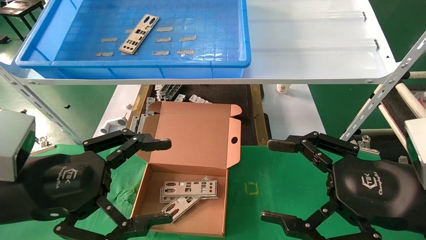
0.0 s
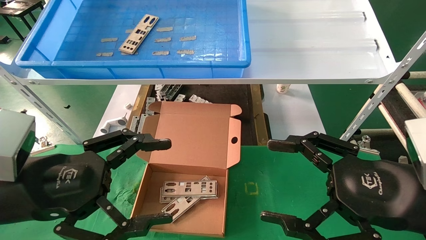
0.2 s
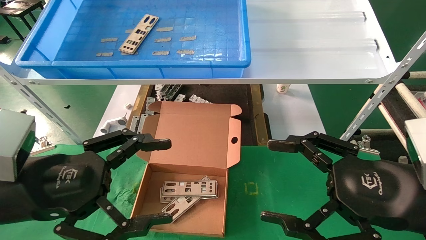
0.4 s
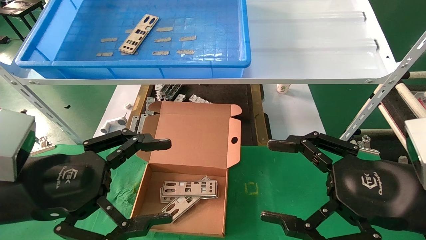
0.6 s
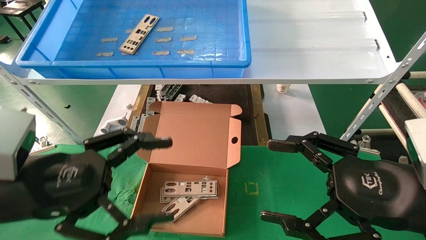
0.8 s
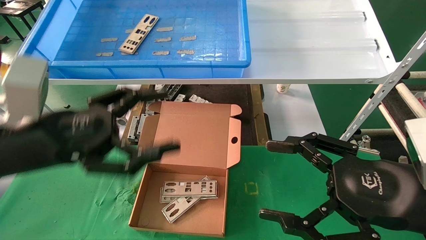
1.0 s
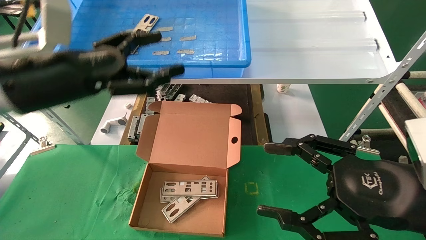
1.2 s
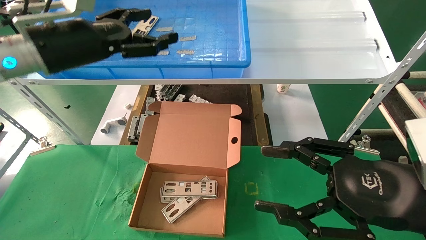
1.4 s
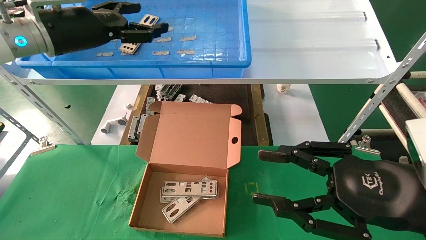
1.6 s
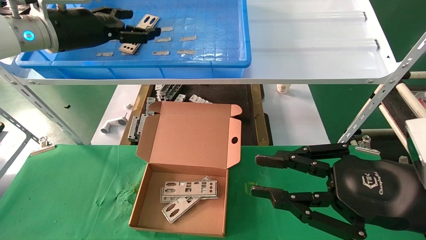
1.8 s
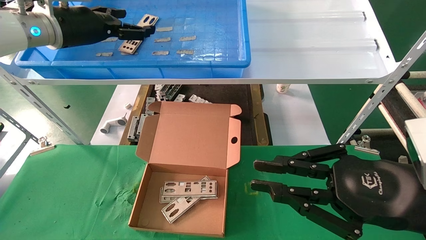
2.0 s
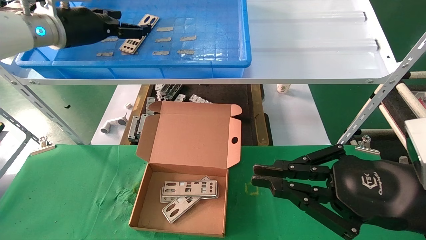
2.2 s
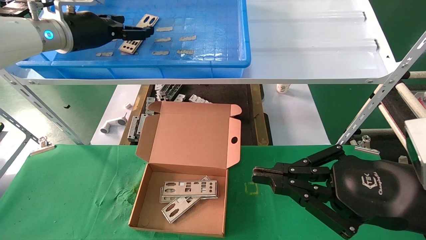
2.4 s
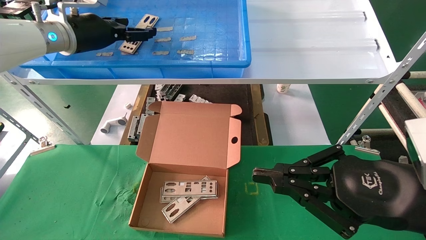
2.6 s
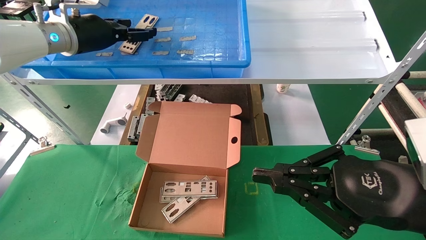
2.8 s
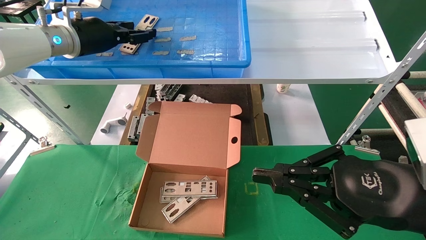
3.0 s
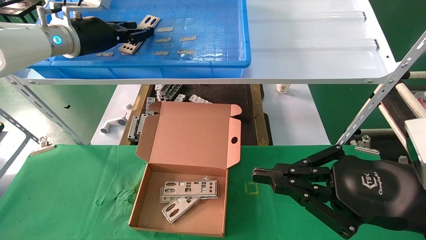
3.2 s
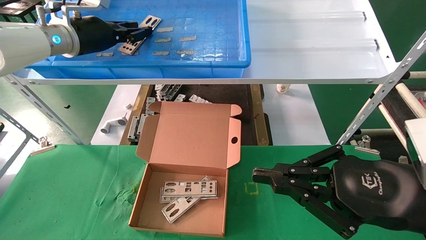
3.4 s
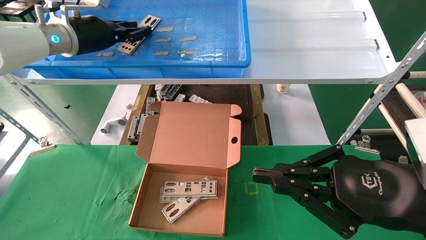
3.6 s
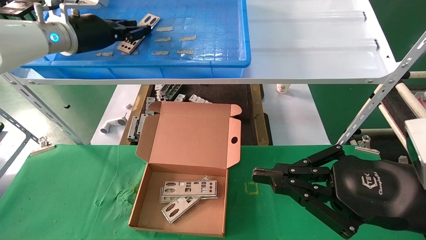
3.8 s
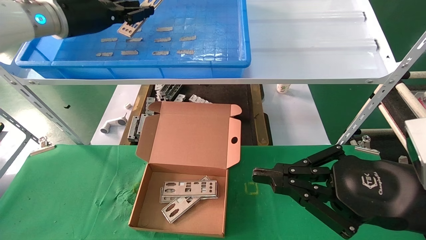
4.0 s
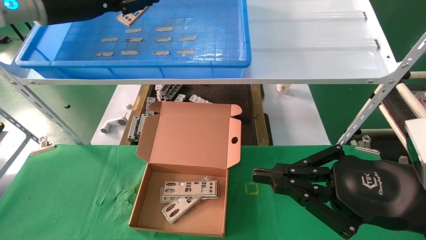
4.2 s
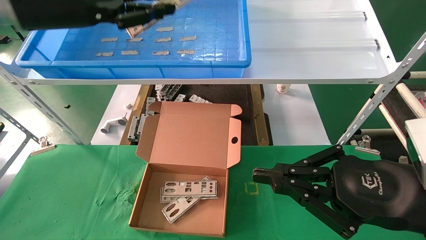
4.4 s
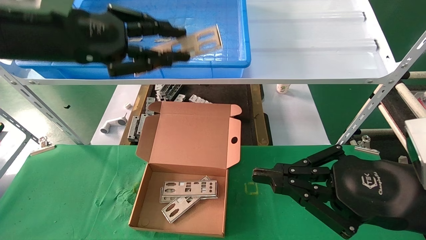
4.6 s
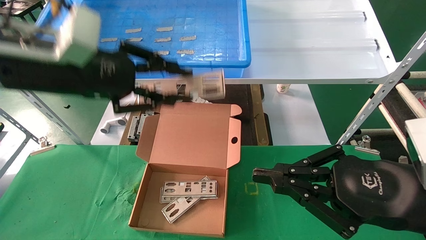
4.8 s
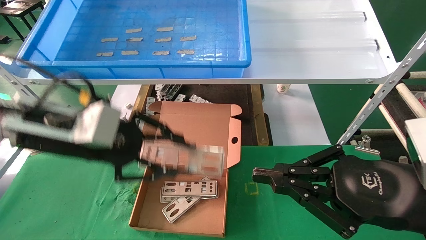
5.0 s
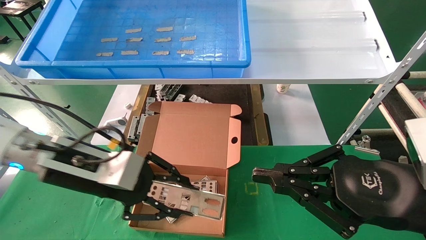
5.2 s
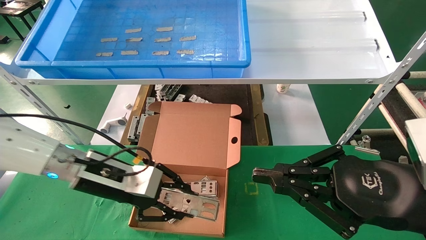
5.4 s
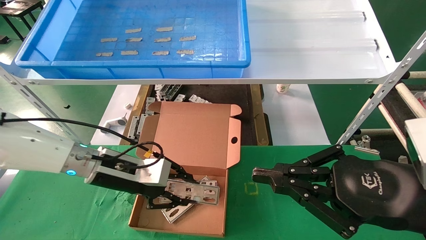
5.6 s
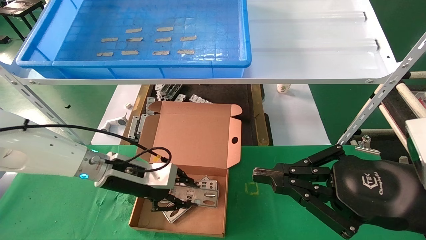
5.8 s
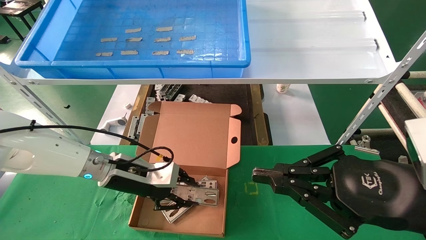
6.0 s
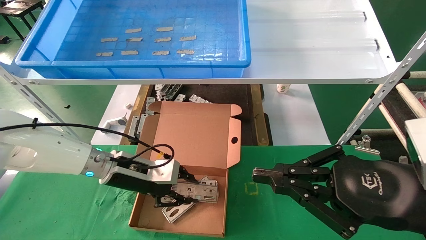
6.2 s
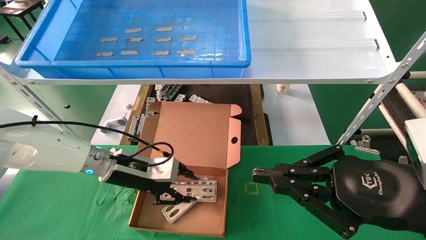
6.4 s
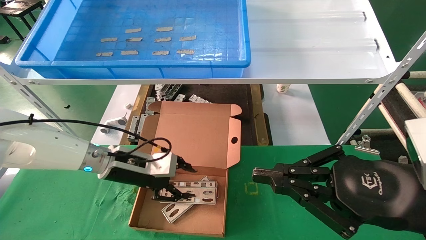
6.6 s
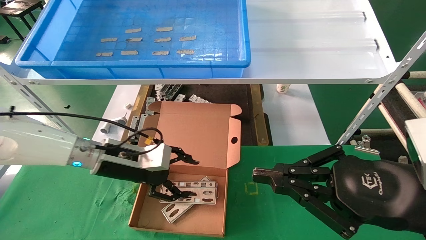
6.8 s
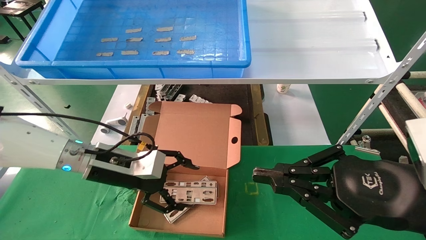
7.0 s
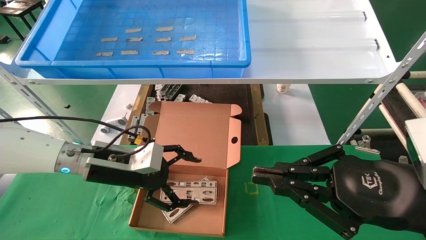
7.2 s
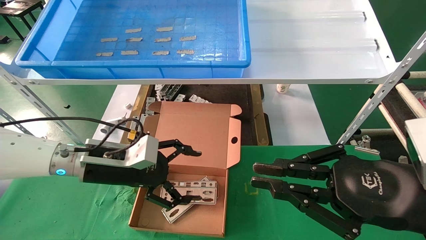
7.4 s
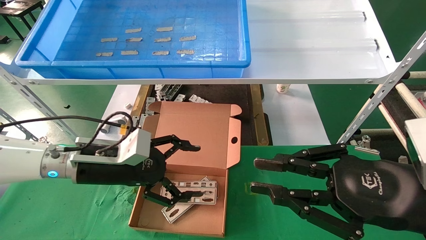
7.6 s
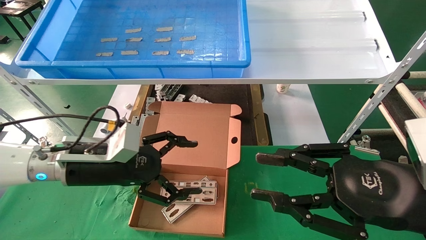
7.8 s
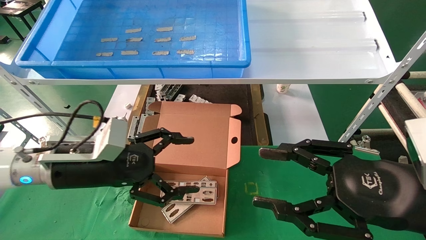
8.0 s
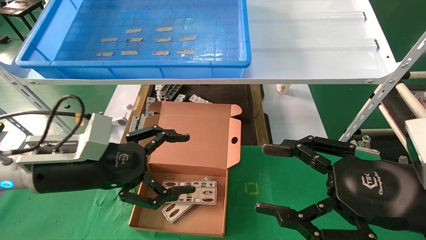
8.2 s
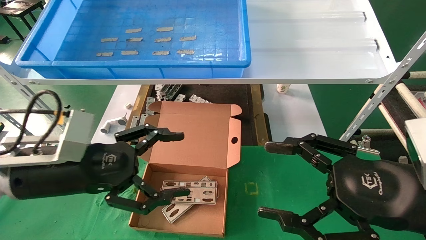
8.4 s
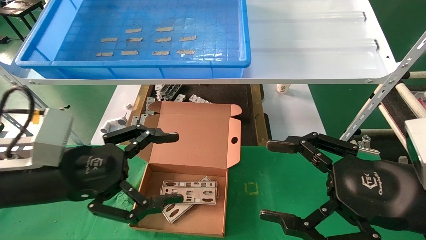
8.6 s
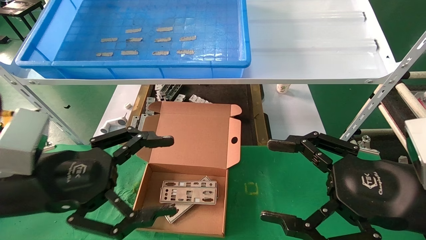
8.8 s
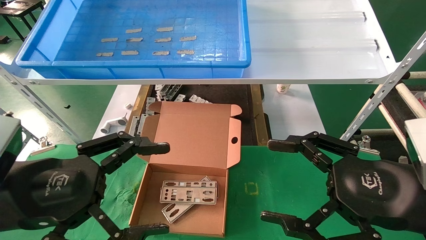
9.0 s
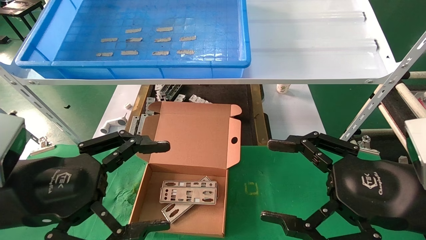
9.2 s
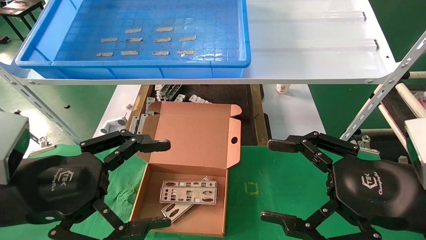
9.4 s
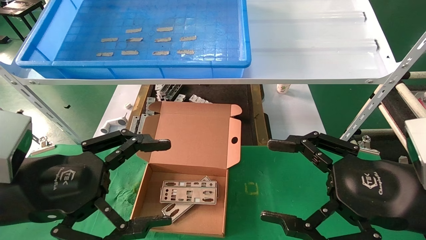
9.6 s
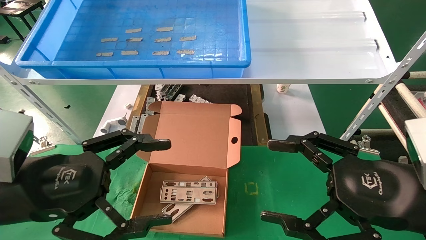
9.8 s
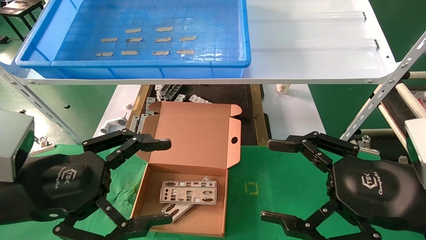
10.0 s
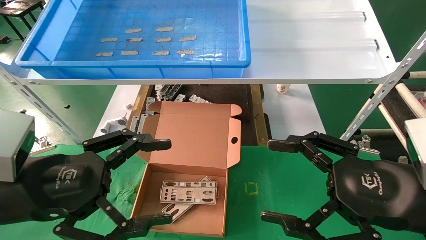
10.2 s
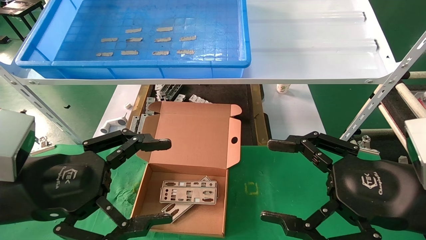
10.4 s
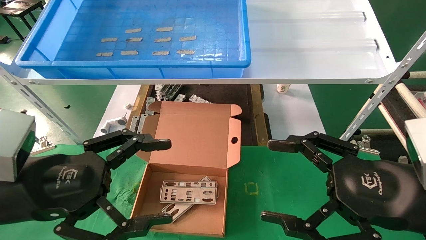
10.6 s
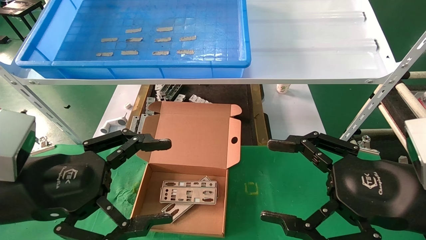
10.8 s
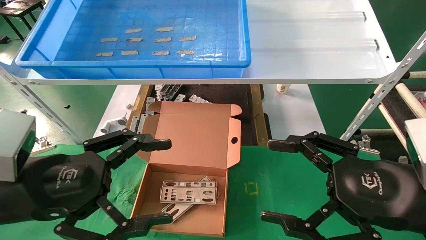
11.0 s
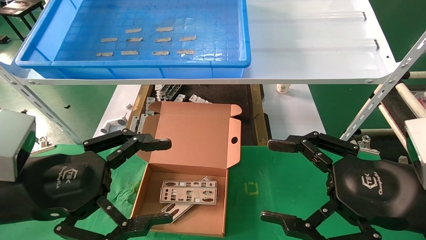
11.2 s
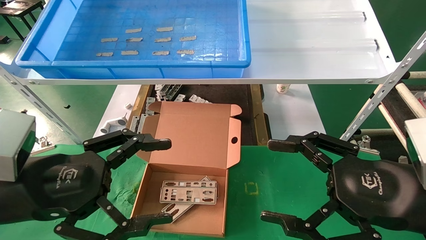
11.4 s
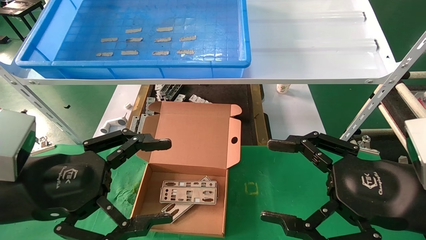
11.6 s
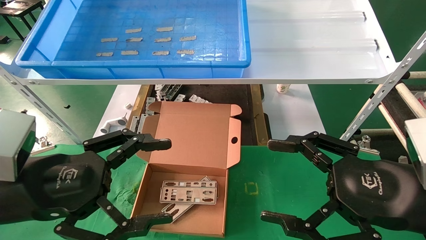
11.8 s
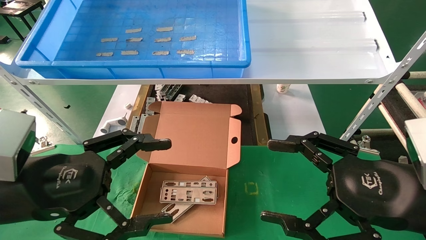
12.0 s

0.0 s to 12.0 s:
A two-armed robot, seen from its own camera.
Task of the whole recording: pick up the parts on the tray and put them in the cardboard box.
Step, 1.2 to 4.0 s: Pick up the IO bracket from the container box.
Step, 4.2 to 6.6 s: Place the IO bracket into the ingredient slot.
0.0 to 1.6 s: The left gripper moves forward and upward, about 25 cm, while the right gripper closes.
1.6 to 3.0 s: The left gripper heads forward, covering approximately 5 cm, and closes up, while the right gripper closes.
3.0 to 4.4 s: The left gripper heads backward, covering roughly 10 cm, and closes up.
4.4 to 6.0 s: The left gripper is displaced downward by roughly 30 cm.
6.0 to 7.6 s: The left gripper moves about 5 cm, and opens up.
7.6 to 9.0 s: The right gripper opens up; the left gripper is displaced backward by about 15 cm.
9.0 to 12.0 s: The two grippers keep their place.

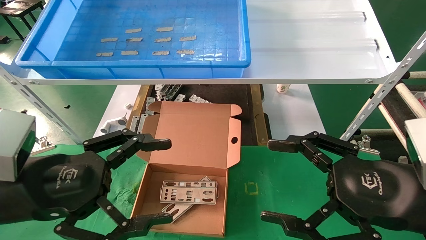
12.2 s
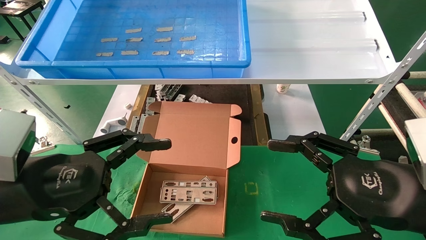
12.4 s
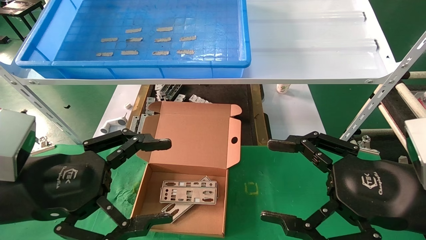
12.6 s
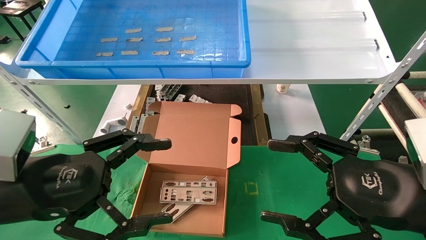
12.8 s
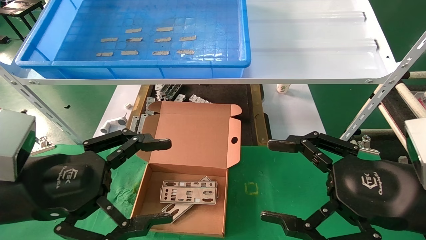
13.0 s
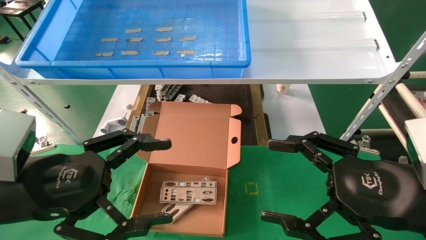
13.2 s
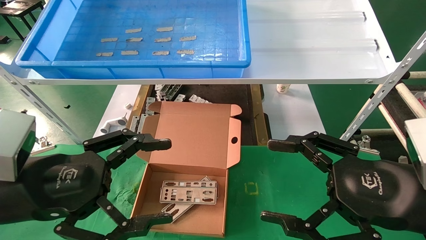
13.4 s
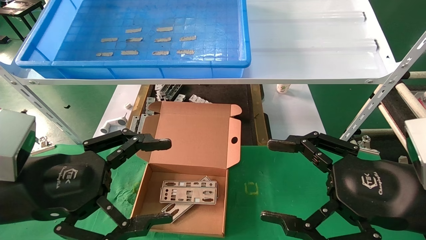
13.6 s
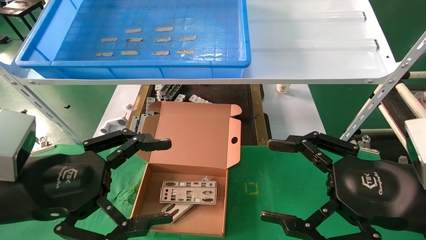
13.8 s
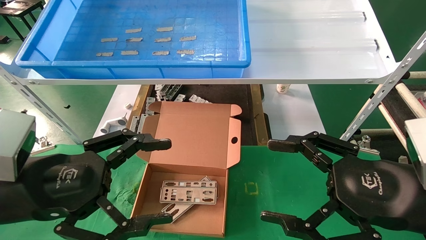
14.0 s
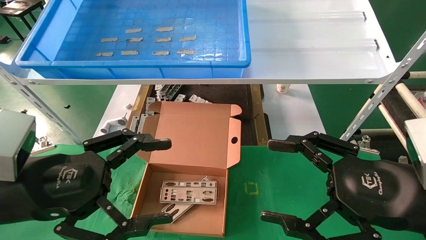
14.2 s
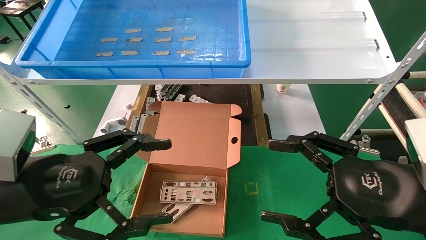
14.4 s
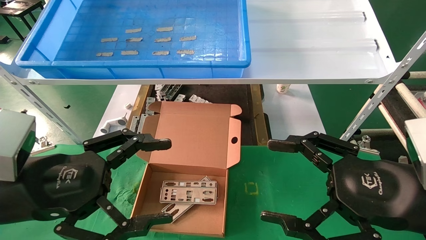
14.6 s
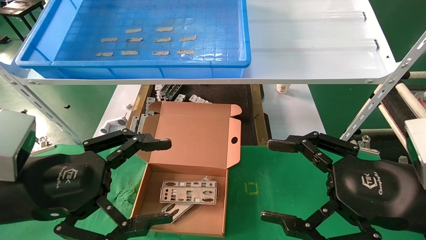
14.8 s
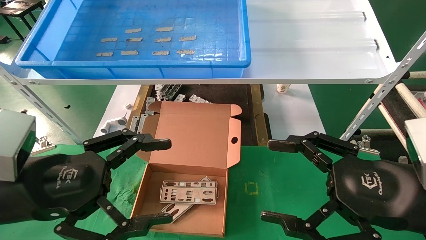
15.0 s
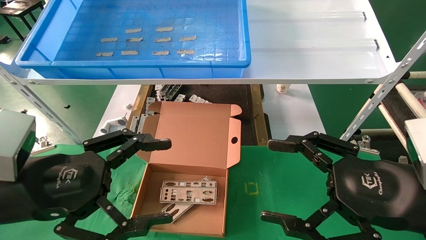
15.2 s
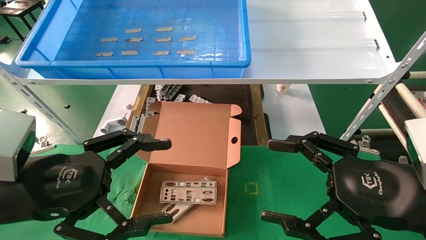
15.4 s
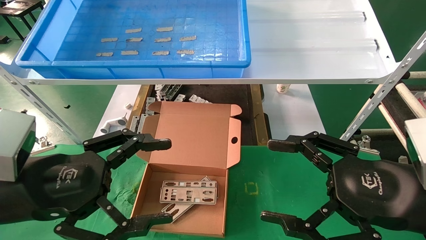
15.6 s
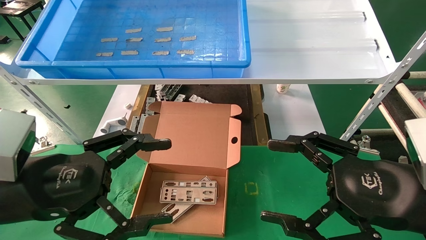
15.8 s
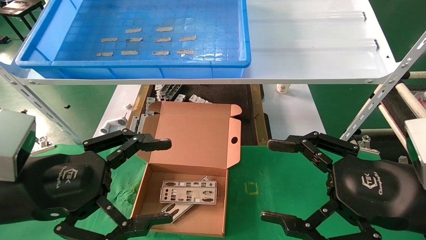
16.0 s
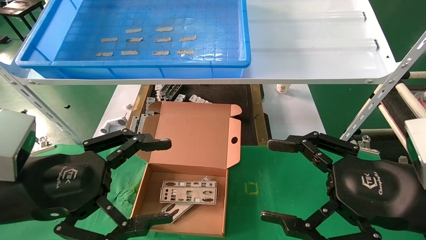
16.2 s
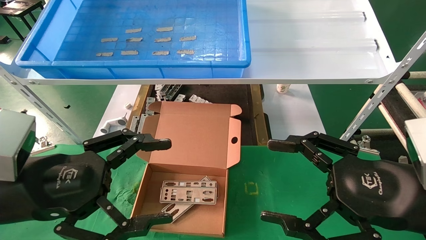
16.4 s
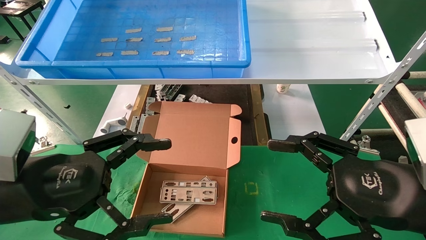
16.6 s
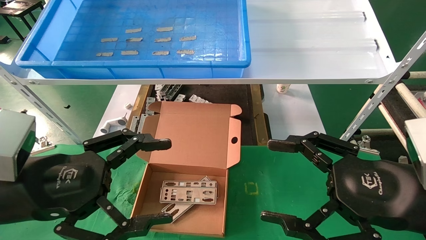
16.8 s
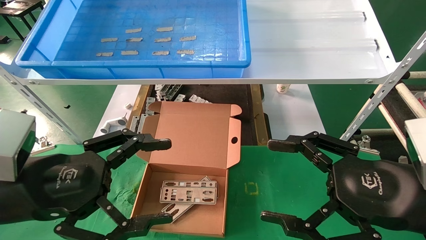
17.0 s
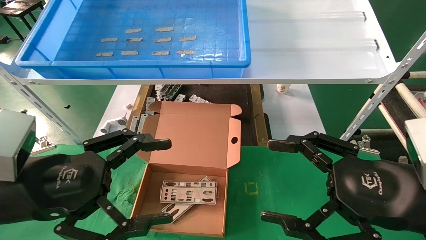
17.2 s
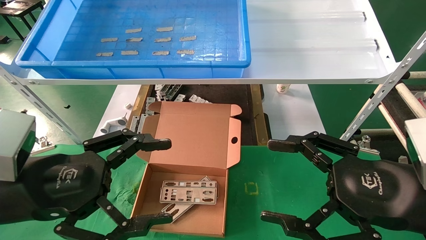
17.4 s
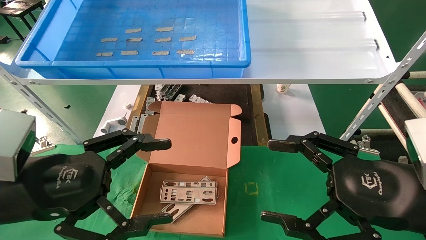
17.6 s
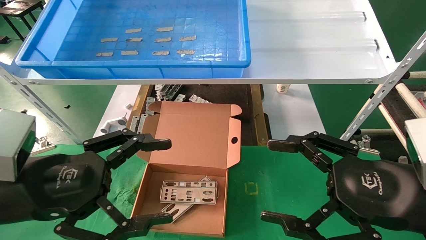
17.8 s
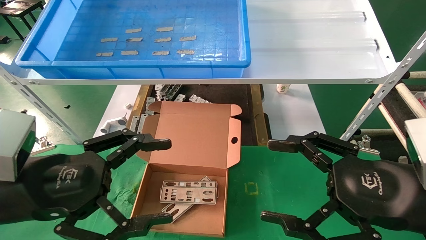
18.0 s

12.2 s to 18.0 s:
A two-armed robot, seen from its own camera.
Task of the whole recording: pick up the parts on the tray and put them in the cardboard box.
12.2 to 18.0 s: Both grippers stay about where they are.
